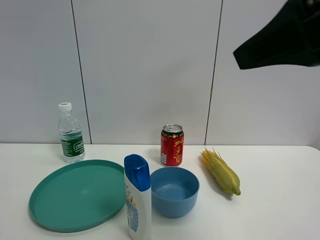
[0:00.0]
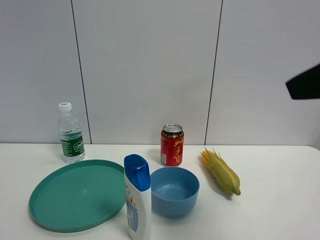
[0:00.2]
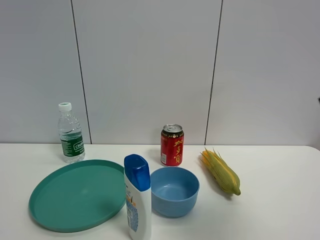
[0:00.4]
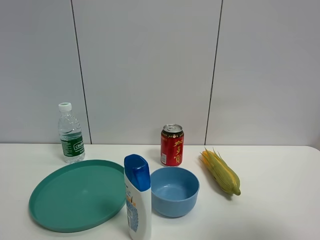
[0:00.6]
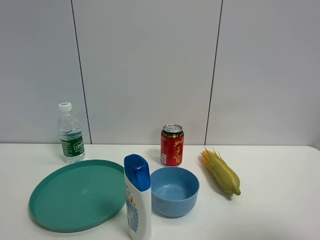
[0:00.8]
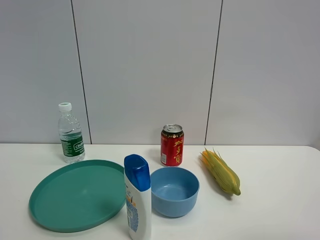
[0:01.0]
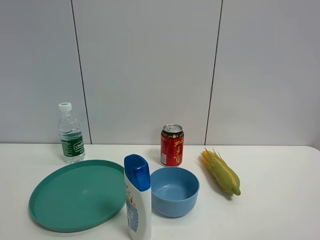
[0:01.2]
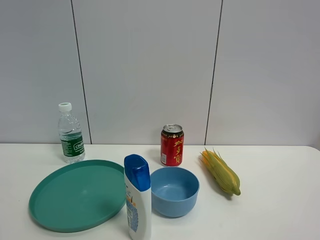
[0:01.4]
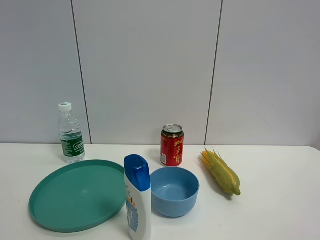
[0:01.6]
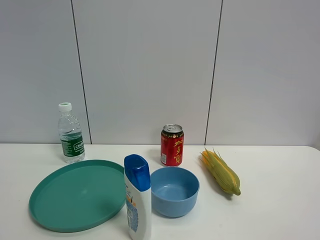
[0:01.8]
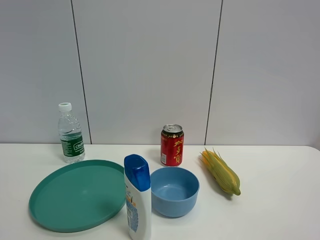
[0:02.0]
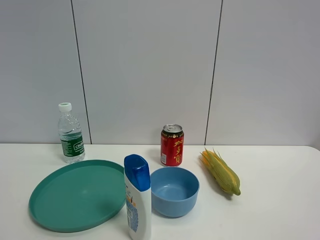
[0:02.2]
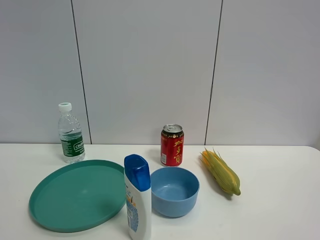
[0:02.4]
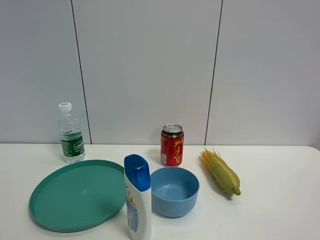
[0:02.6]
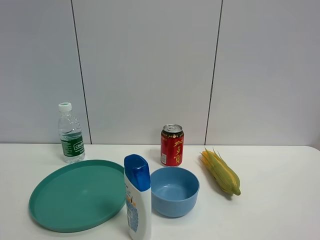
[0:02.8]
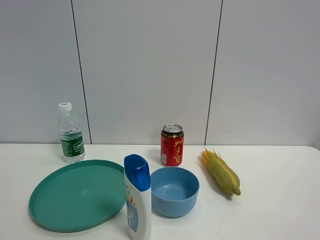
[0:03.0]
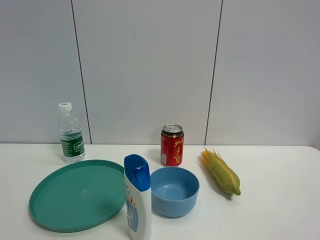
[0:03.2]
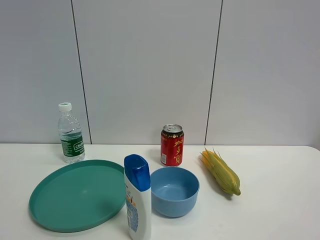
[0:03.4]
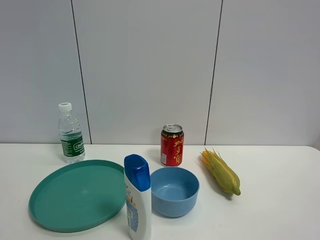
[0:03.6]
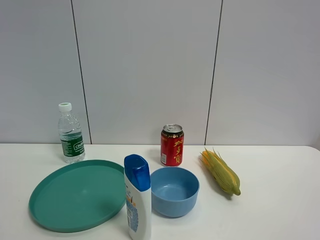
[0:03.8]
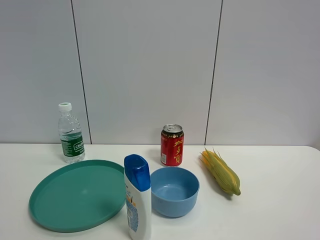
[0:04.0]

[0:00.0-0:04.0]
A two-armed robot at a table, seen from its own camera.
Task of the whole recording: the gripper move the object.
0:00.0 to 0:01.4: The right gripper goes some 20 cm backward and to the right.

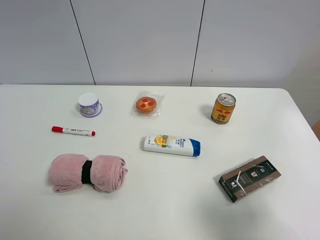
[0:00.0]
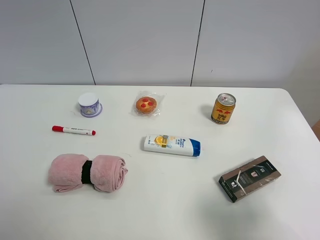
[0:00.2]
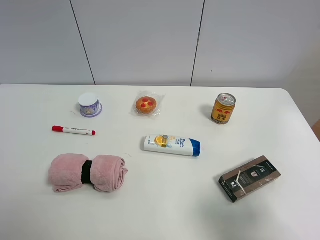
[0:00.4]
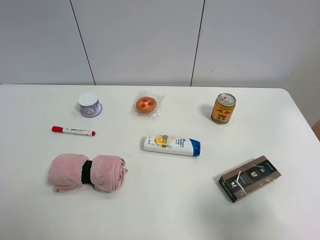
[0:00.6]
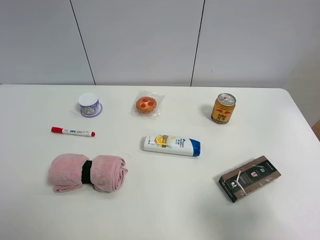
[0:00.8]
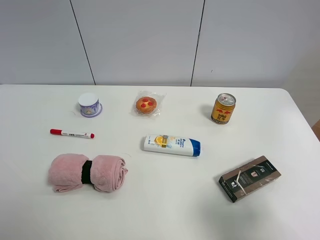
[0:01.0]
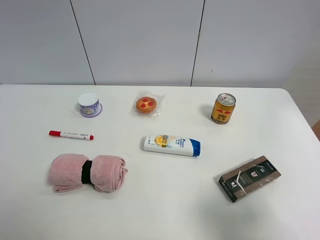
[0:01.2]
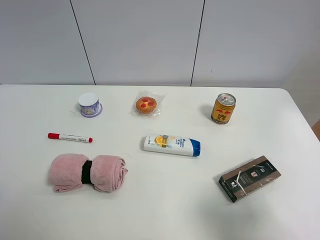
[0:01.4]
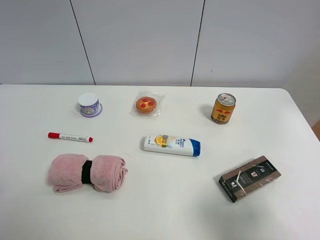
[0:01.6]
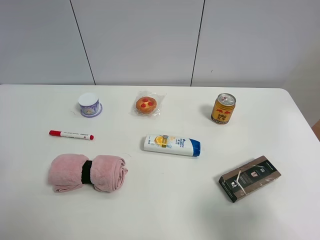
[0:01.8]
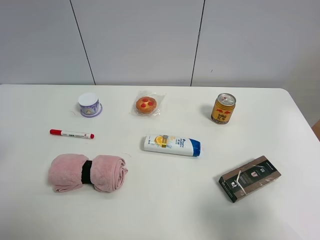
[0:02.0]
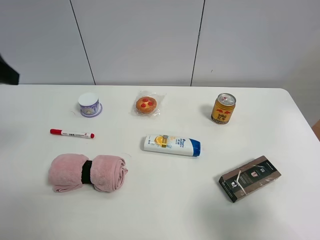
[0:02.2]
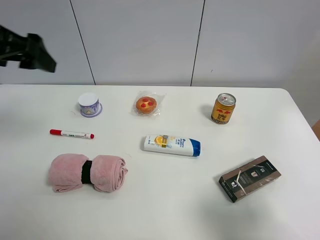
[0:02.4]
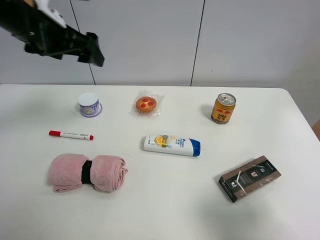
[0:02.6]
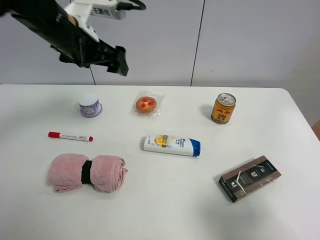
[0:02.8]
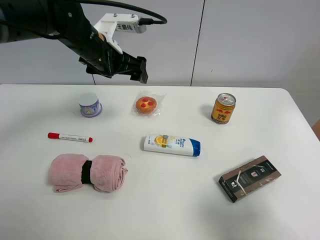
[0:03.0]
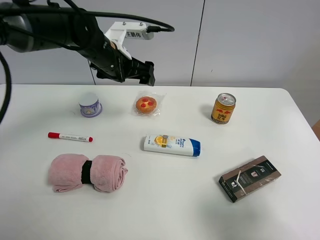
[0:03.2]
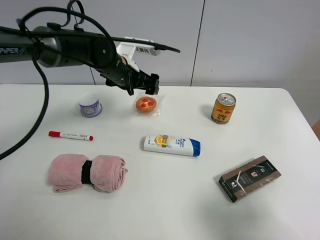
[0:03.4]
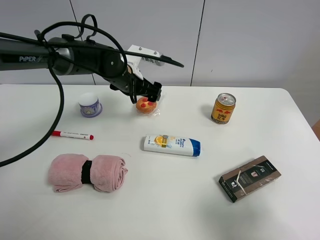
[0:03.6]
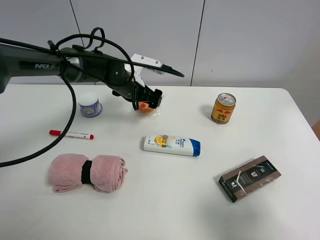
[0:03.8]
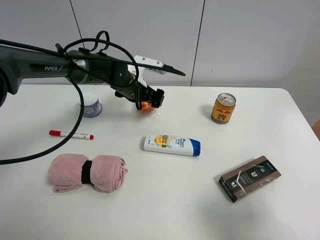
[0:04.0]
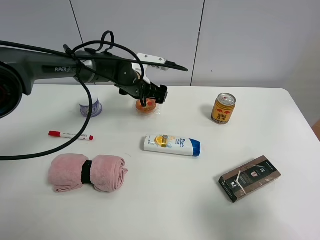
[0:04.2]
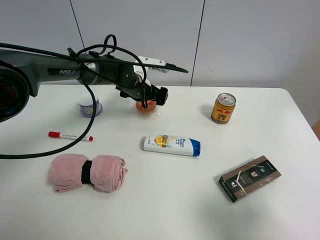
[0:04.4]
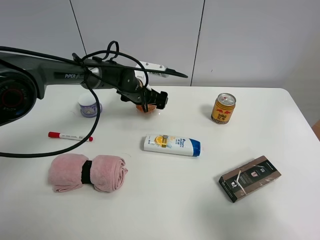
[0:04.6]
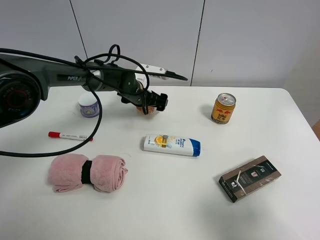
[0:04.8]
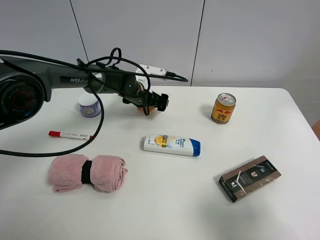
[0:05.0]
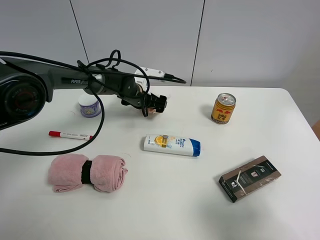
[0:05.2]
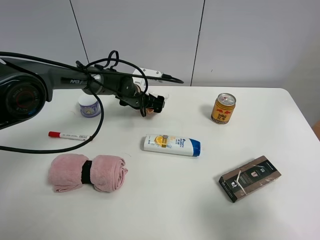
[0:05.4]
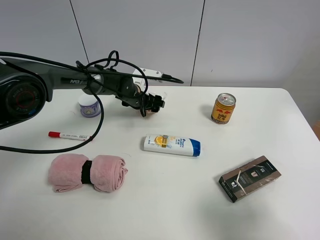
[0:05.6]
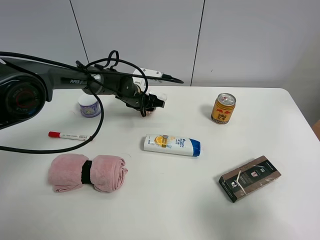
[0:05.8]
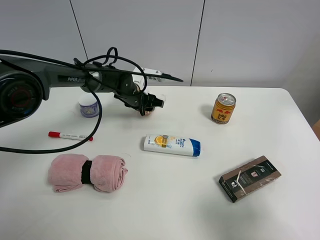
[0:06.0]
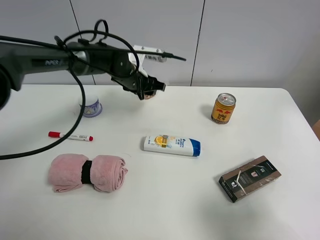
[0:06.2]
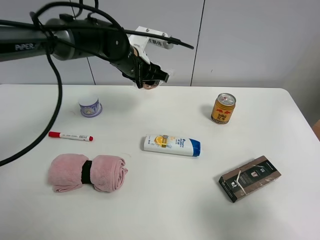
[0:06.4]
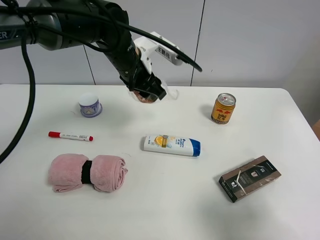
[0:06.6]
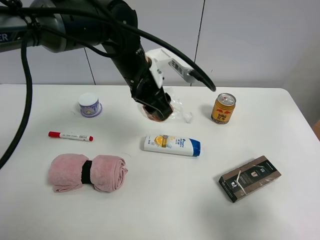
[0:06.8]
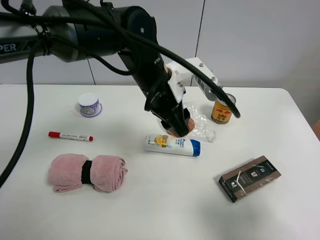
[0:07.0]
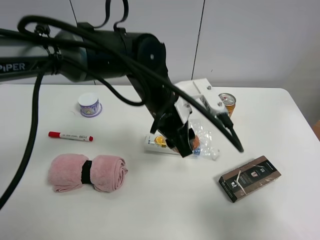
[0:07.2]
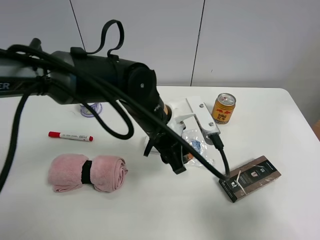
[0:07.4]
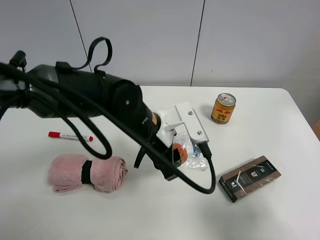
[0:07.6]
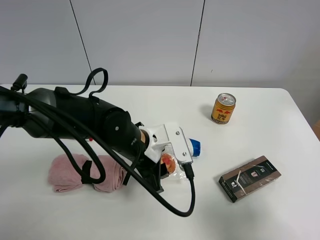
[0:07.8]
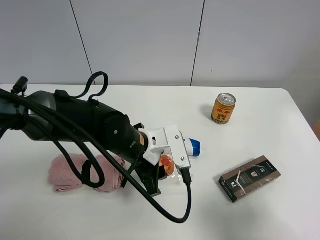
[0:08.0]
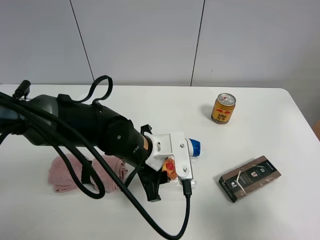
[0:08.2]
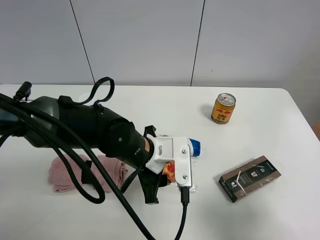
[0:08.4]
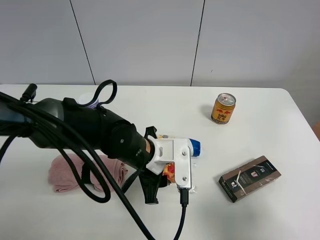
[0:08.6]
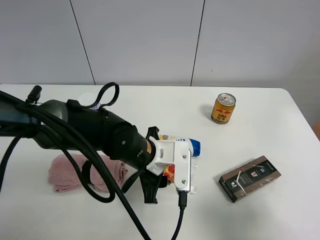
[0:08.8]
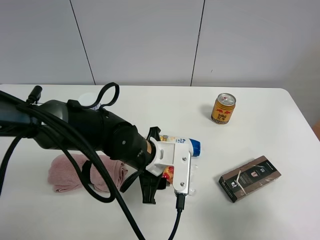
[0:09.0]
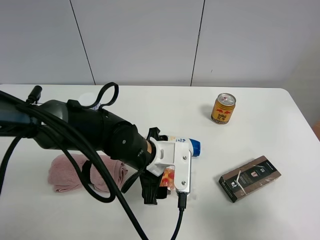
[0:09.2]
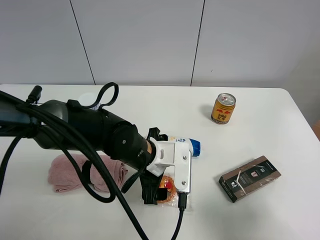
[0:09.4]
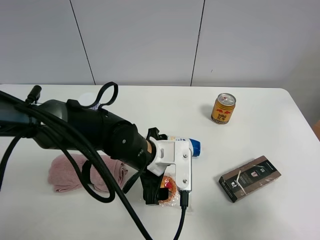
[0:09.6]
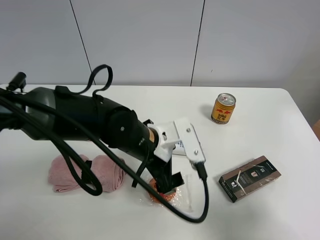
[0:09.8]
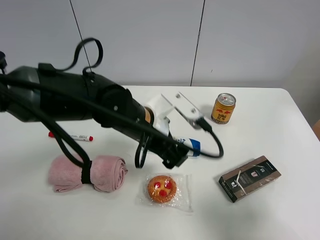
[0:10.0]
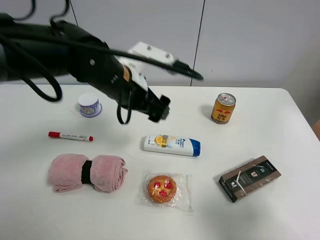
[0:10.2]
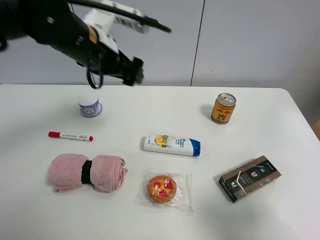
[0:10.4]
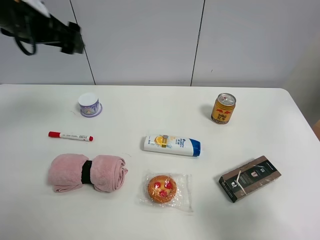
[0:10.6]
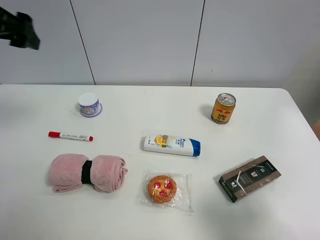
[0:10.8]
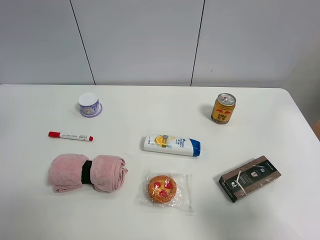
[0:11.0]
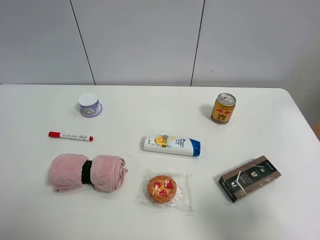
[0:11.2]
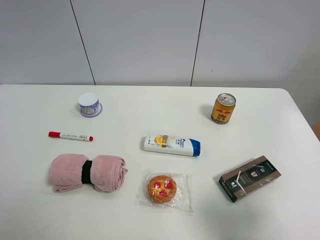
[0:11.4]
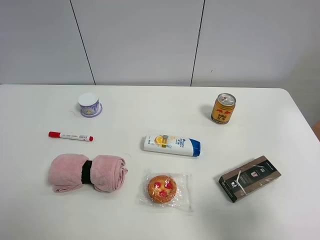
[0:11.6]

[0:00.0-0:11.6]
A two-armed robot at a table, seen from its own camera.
Task of the whole recording: the gripper move the object.
Step, 0:00.0 to 0:05.6: Grasp the egg tart with the left gripper.
Step, 0:05.8 to 0:09.2: Place the egg tart on the table with the left gripper.
0:01.4 to 0:02.8: The left gripper is displaced forward and to the right by roughly 35 cm.
0:02.8 to 0:04.4: The left gripper heads downward, forward and to the right, covering some 20 cm.
0:04.4 to 0:05.8: The left gripper closes up.
0:05.8 to 0:07.2: The left gripper heads backward, upward and to the right, covering roughly 25 cm.
0:07.2 to 0:08.8: The left gripper is displaced downward by about 10 cm.
0:08.8 to 0:10.2: The left gripper travels upward and forward by roughly 15 cm, and opens its fingers.
0:10.2 to 0:11.6: The left gripper heads to the left and backward, covering some 35 cm.

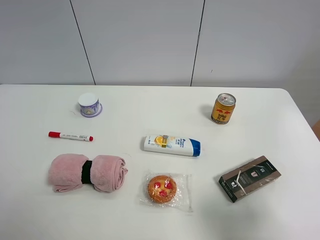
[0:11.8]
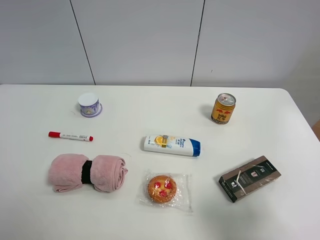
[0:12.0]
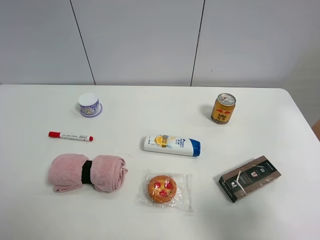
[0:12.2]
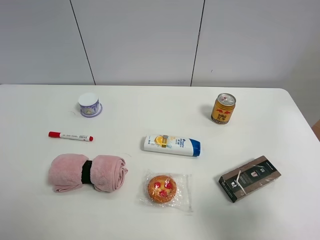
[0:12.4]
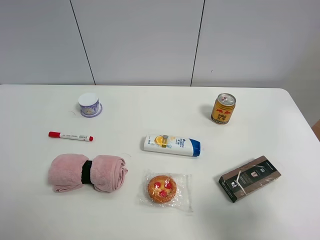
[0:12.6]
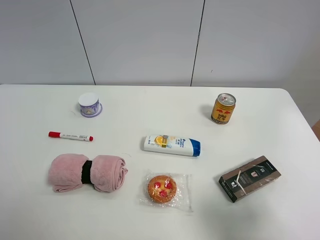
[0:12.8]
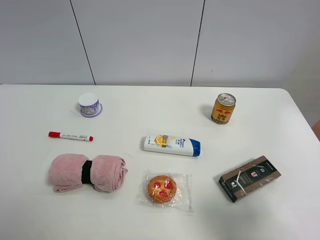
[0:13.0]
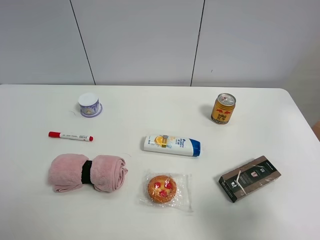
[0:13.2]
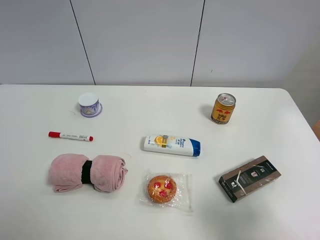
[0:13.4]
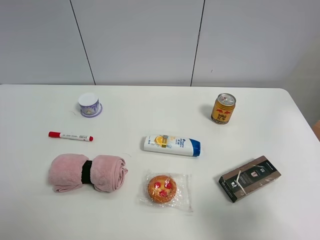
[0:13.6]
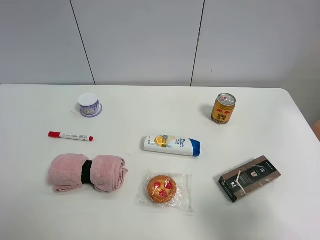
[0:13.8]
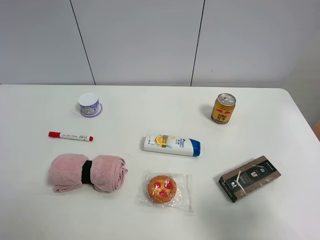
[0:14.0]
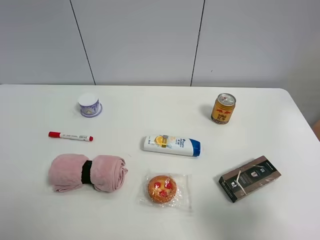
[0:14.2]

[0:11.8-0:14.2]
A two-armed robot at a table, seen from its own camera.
Task of the whole recording: the gripper move the object.
0:13.0 to 0:14.2: Both grippers stay about where they are.

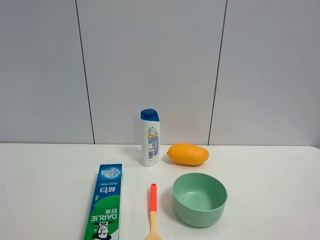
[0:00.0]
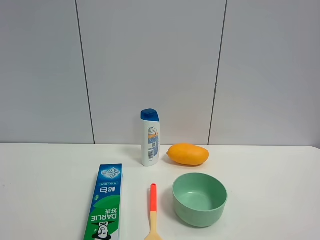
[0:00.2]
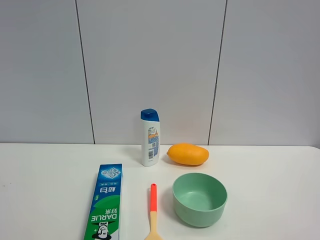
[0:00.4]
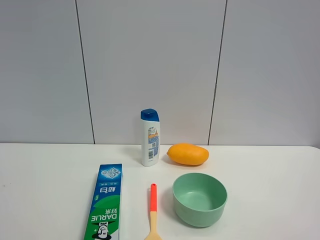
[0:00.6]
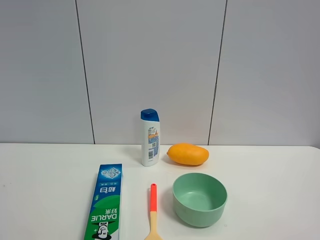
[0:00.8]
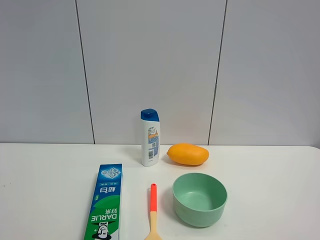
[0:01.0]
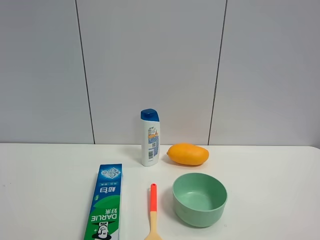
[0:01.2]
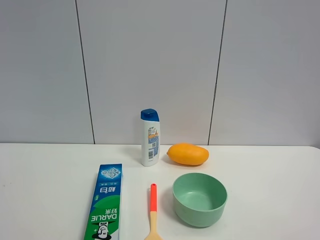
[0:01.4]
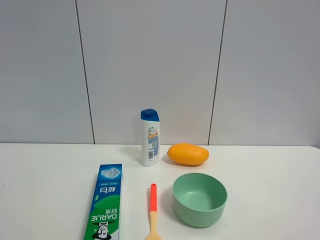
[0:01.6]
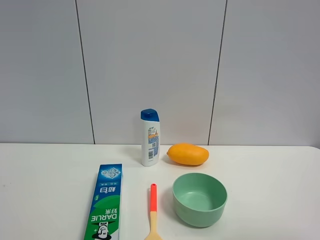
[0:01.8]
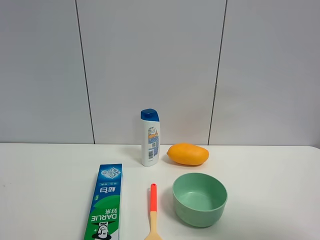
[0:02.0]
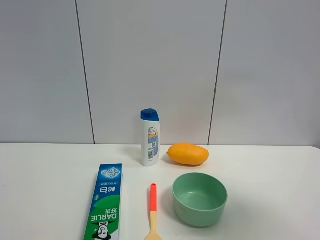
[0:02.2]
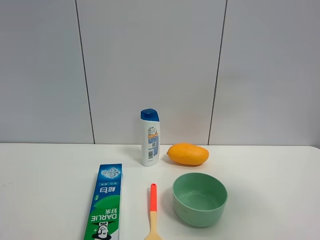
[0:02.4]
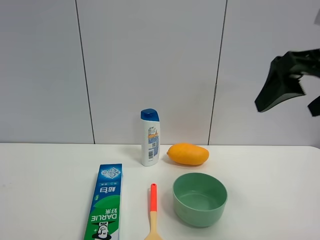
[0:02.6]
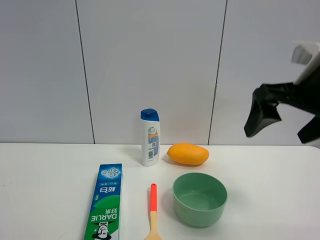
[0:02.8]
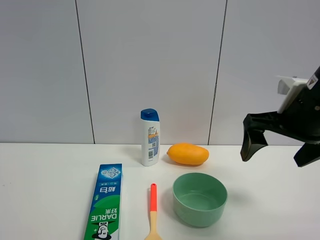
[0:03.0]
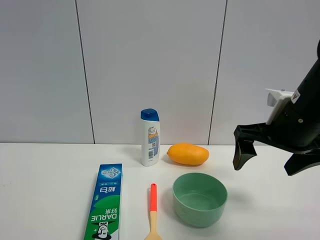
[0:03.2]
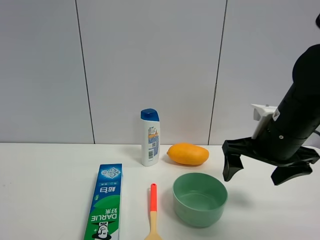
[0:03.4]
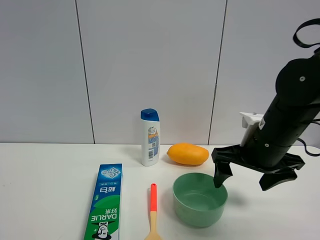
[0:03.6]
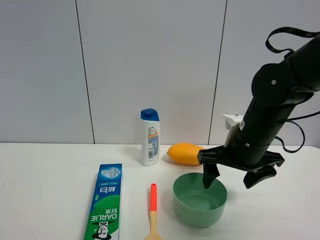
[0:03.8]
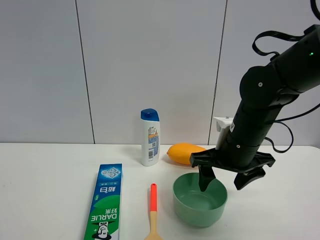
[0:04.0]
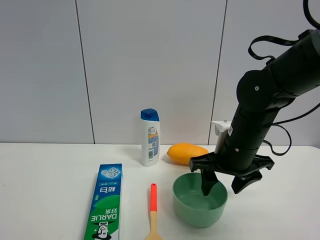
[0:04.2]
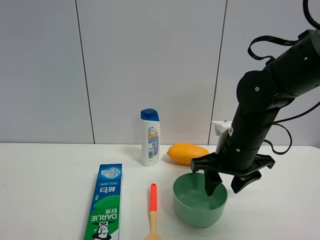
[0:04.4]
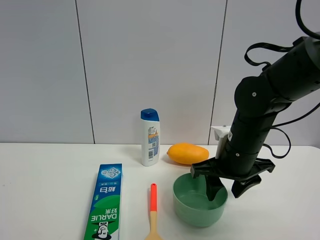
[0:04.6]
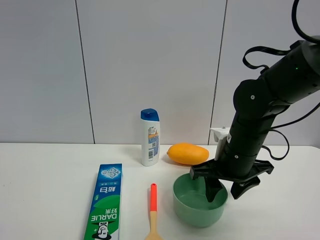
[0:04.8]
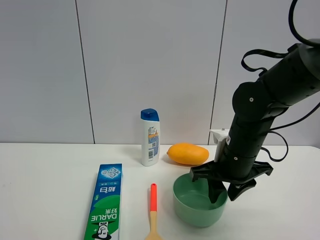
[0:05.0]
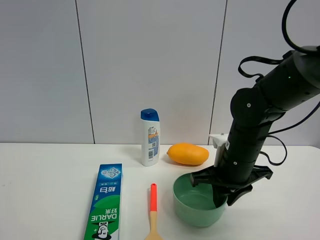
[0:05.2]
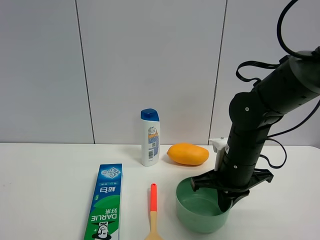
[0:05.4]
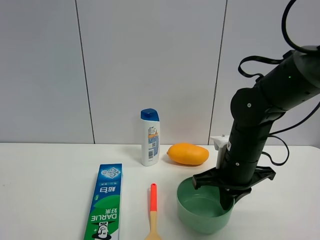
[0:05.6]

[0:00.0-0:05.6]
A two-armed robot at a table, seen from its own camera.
Task of the whole recording: the gripper move the object.
Step, 0:00.0 to 0:05.4: Grasp the green bowl with the right gripper.
0:00.0 to 0:01.4: Neither gripper changes place.
0:01.4 to 0:02.8: The right gripper heads forward, covering roughly 25 cm.
0:02.8 to 0:04.2: The right gripper shifts approximately 15 cm downward, to the left and forward, and closes up.
0:04.2 to 0:05.6: The right gripper closes its fingers.
